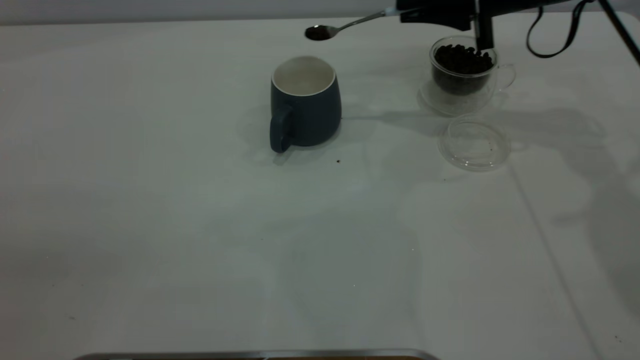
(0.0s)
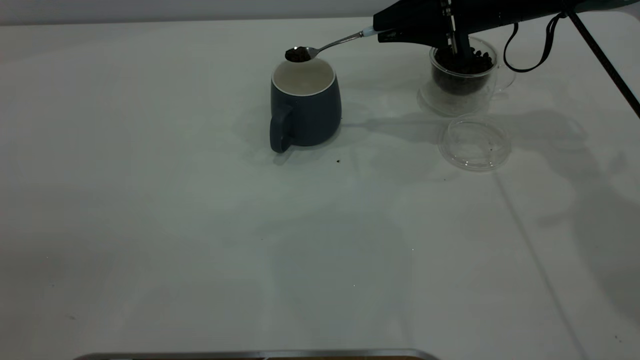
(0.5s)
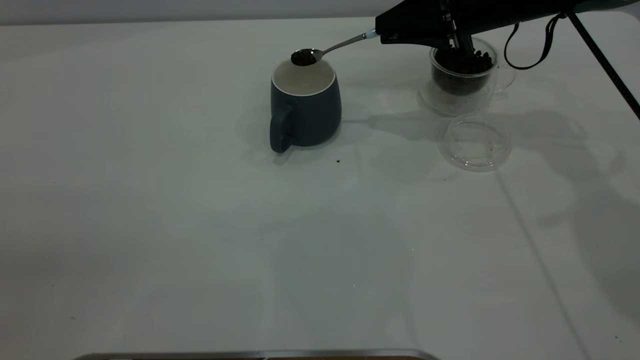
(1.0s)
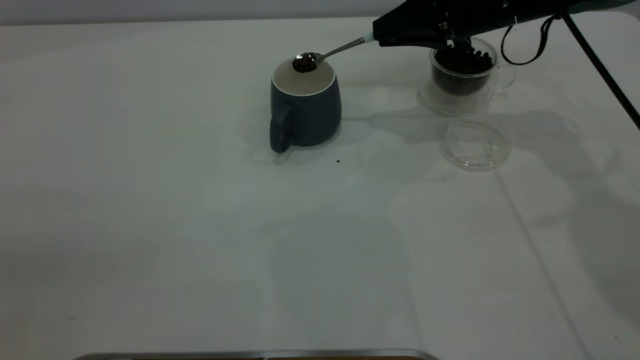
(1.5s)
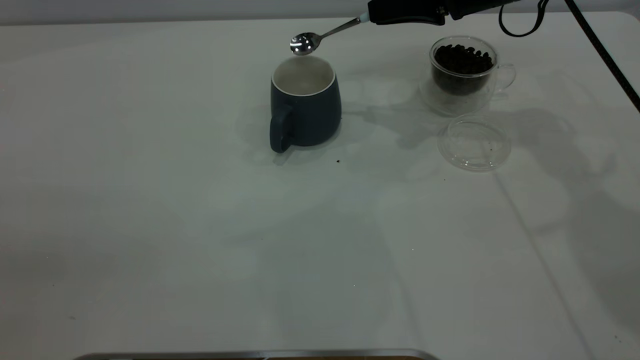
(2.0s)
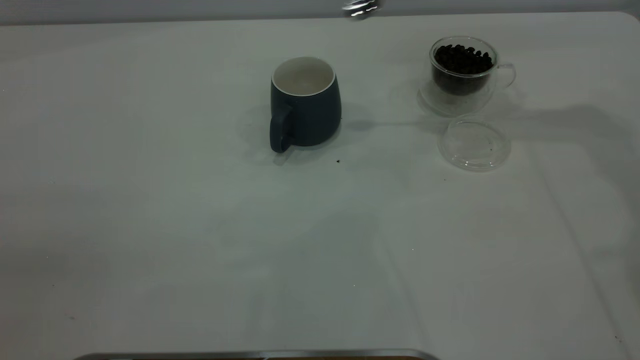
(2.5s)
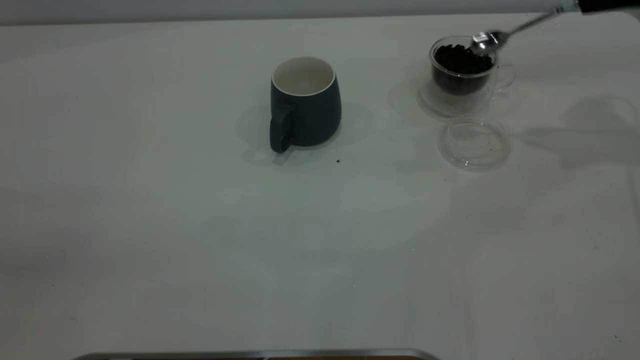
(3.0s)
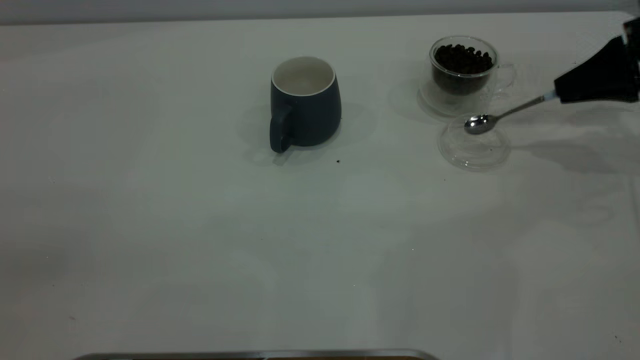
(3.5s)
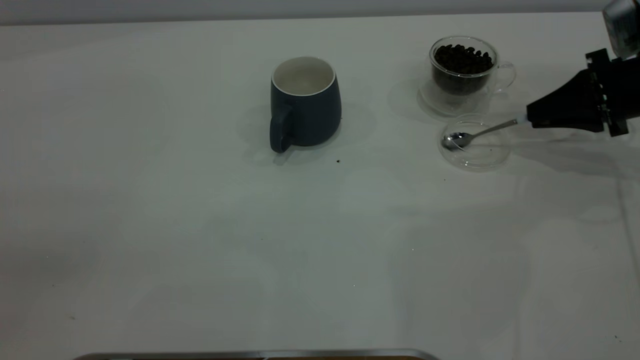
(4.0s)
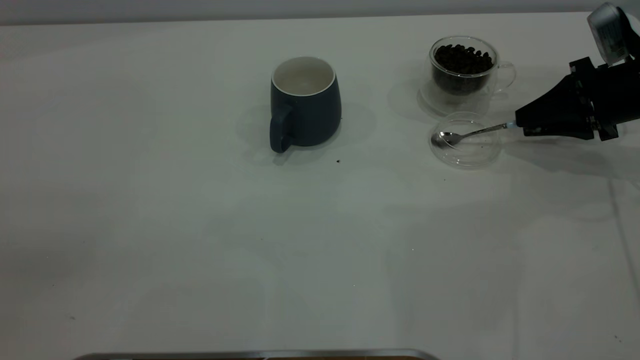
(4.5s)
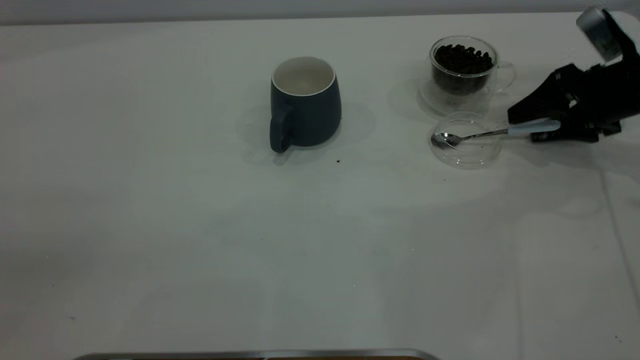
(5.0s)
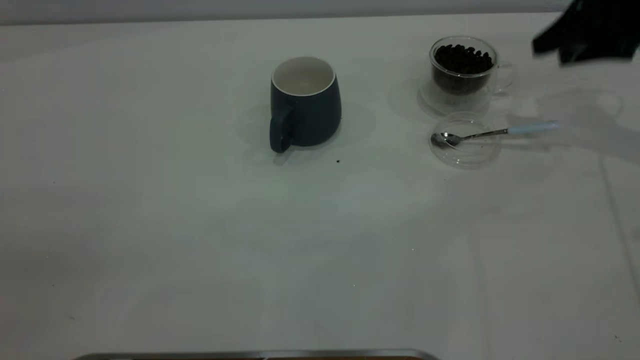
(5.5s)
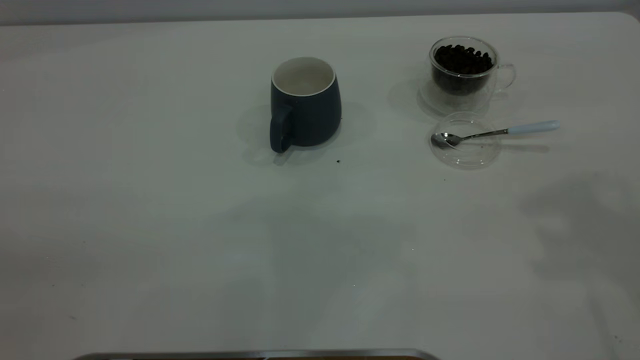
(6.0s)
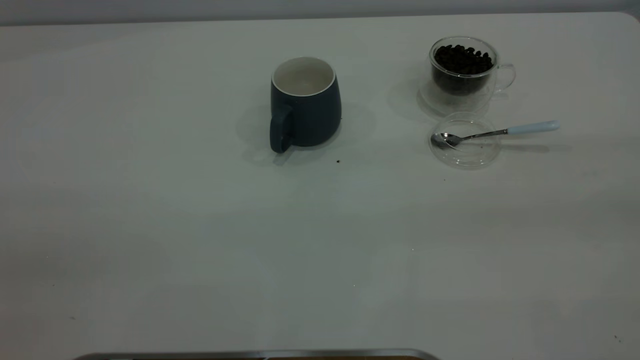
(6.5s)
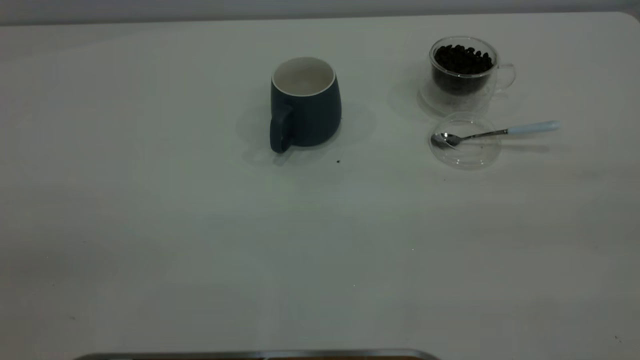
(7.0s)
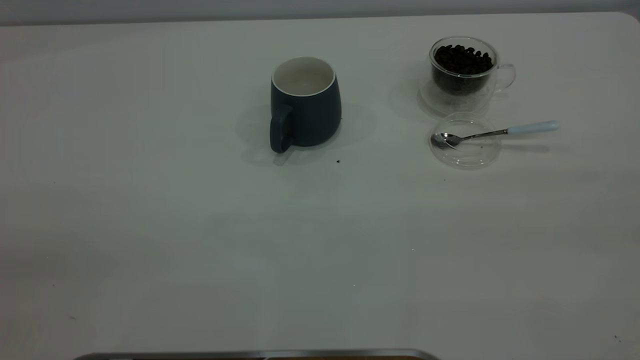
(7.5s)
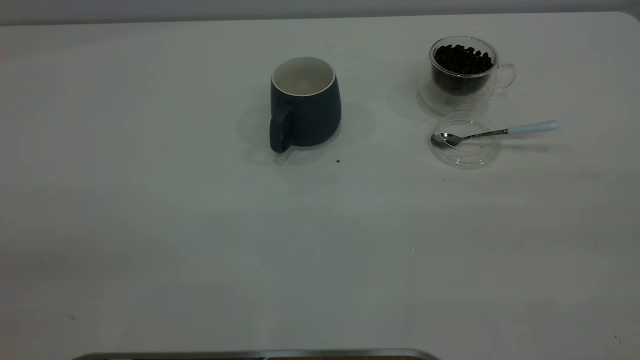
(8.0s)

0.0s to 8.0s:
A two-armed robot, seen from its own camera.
Task of the whole recording: the left gripper place the grey cup in the center of the table, the right gripper take the blue spoon from the cup lid and scoop out the coffee beans from the coffee cup and put them into the grey cup, the right gripper put the spoon back into the cup lid.
Step, 0.0s to 2.0s: Scoop a spoonful of beans into the cup.
Step, 2.5s to 5.0s: Place the spoon back in its original place.
2.0s to 4.0s: The right gripper is displaced to the right and downward by approximately 20 cm.
4.0s to 6.0s: The right gripper moves upward and backward, roughly 35 cm, and opens its fingers.

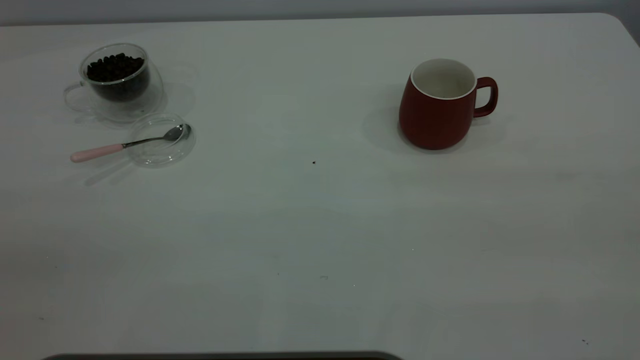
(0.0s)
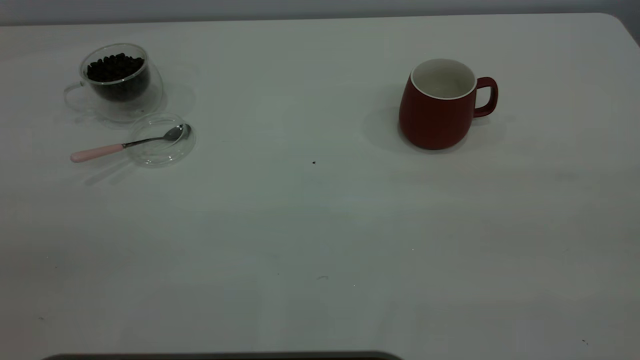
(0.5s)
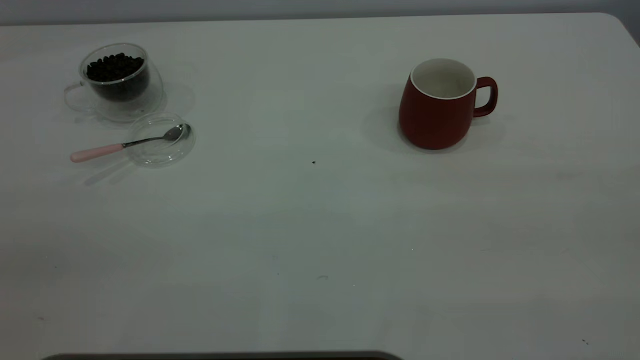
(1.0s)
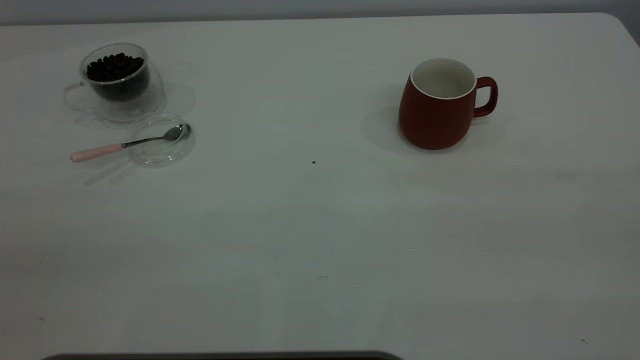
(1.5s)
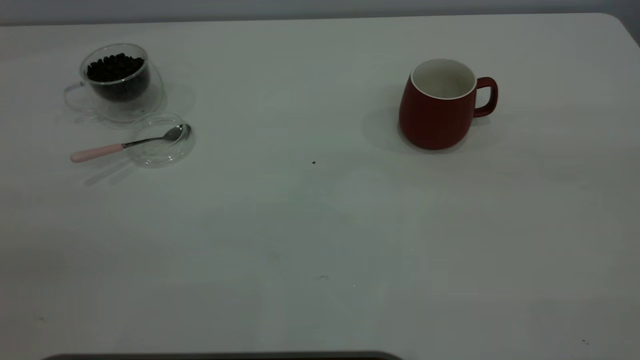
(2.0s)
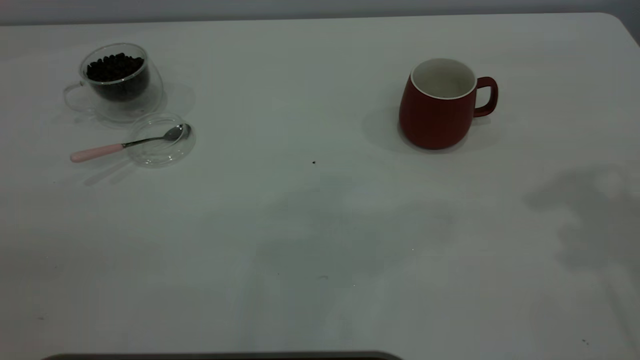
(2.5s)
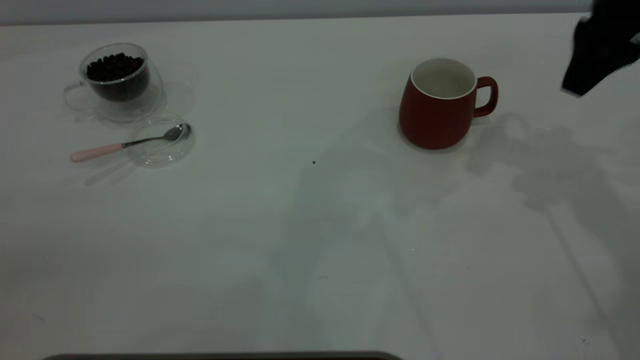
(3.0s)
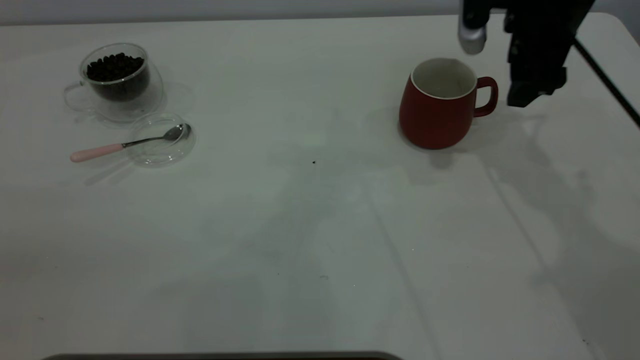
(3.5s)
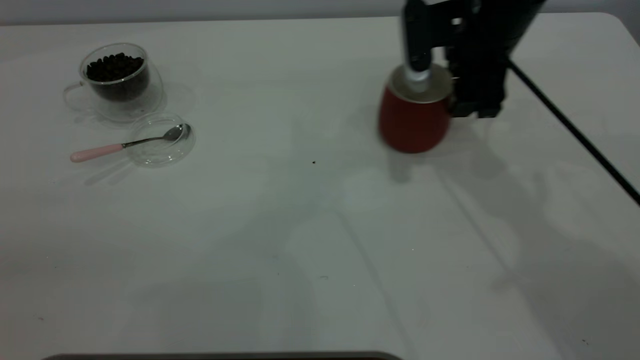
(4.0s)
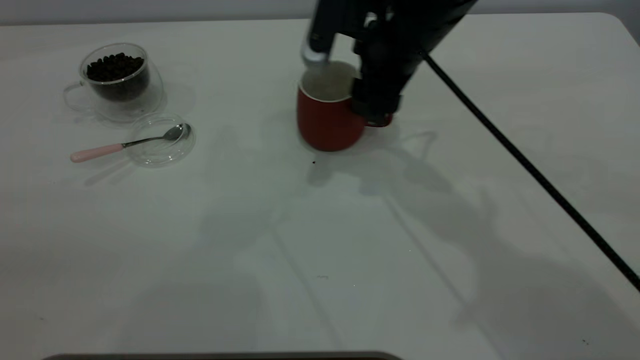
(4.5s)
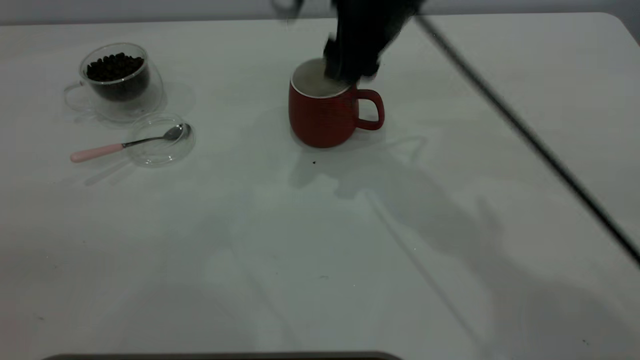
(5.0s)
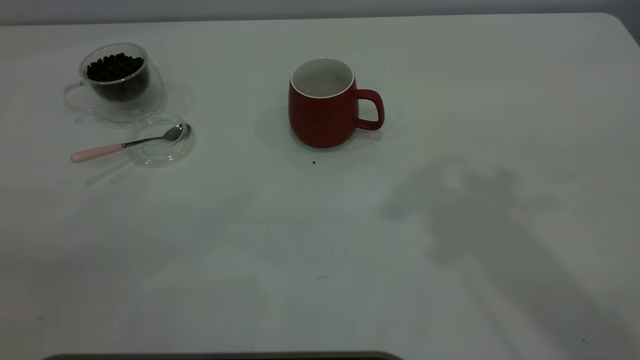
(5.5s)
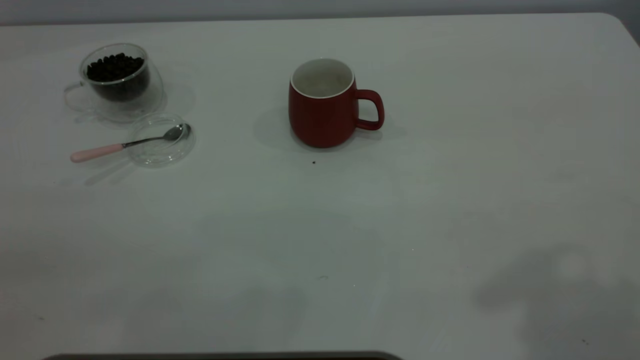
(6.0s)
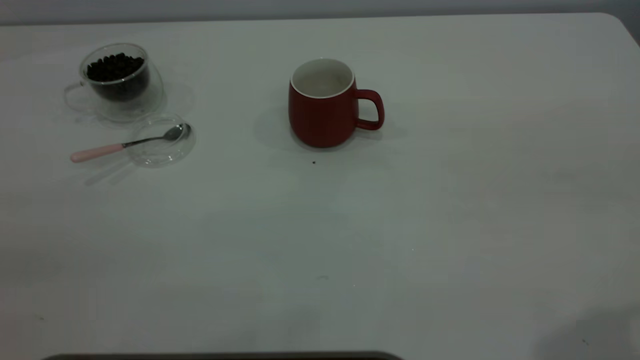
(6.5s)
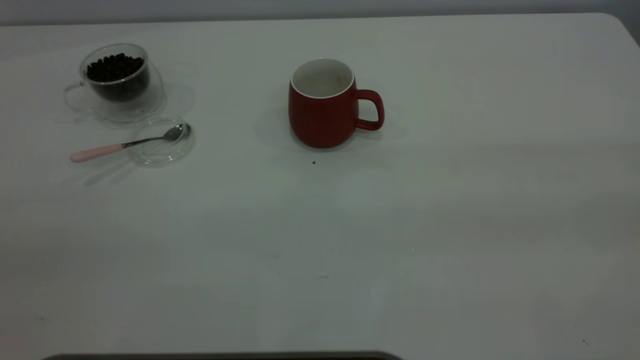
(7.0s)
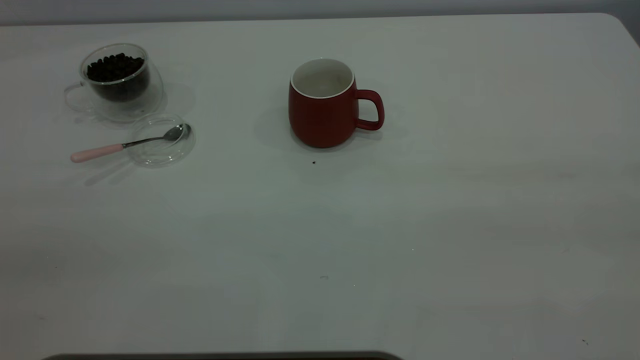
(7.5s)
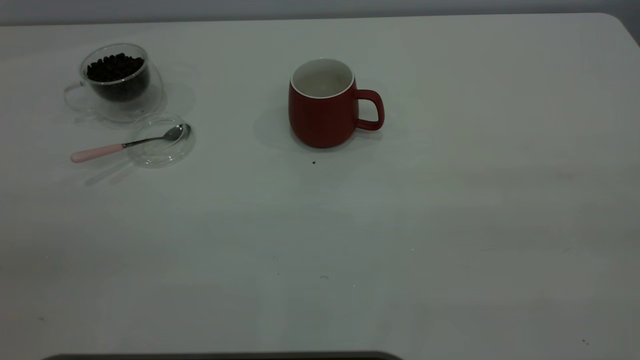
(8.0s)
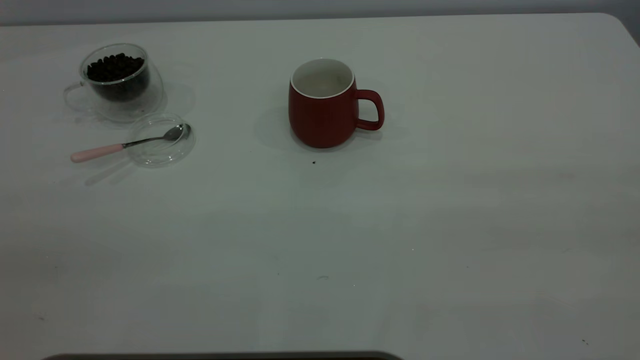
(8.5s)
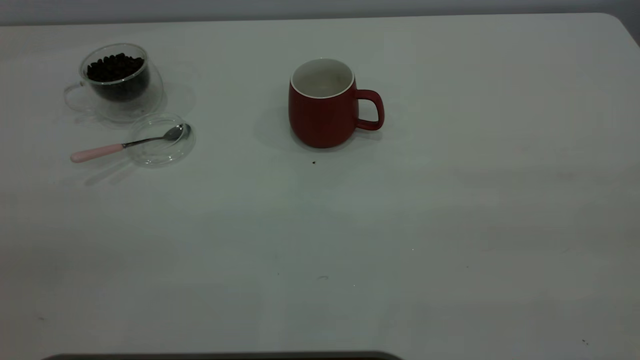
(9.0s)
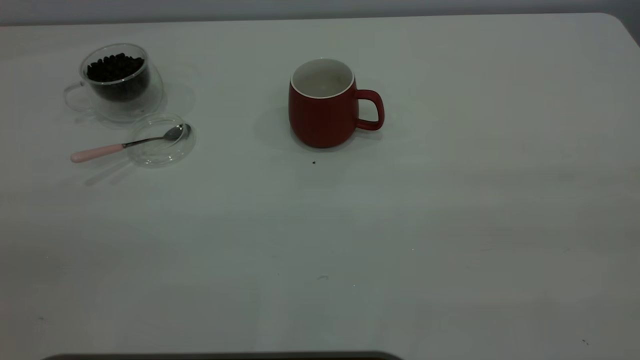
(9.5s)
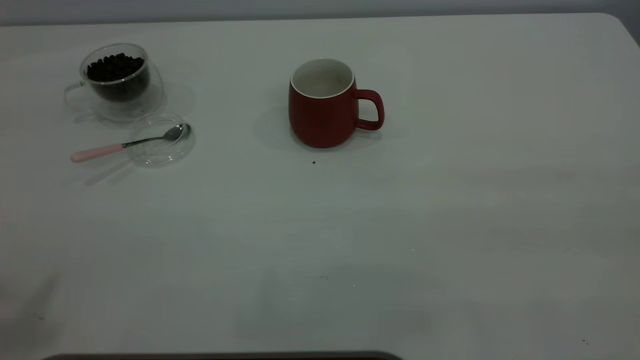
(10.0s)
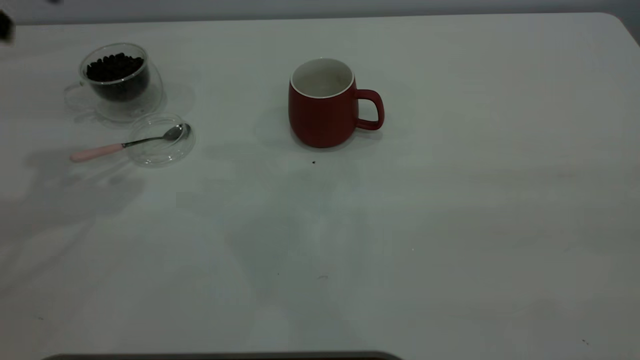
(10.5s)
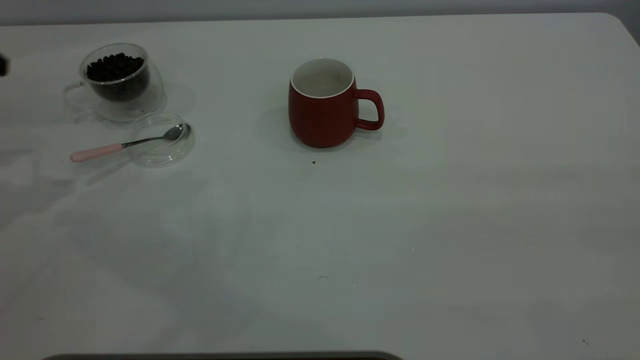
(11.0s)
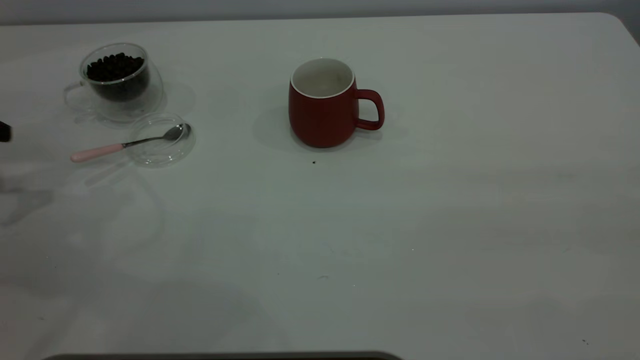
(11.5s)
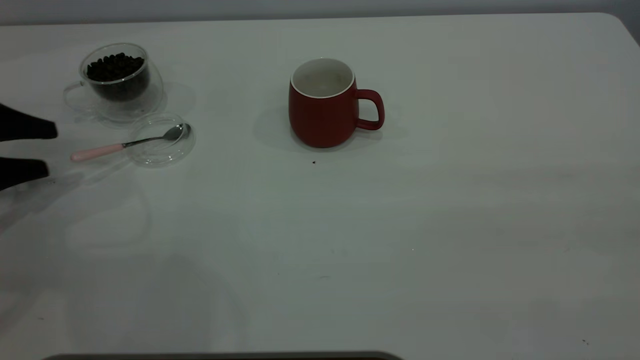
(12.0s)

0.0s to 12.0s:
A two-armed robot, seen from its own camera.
Task of the whole recording: the right gripper place the red cup in the center of the table, the left gripper take the pink spoon from the cup lid and scoop out the coffee beans from the coffee cup and put them into the red cup, the left gripper put the spoon back into the cup lid.
Step, 0.0s to 5.0s: Move the cup to the center of view.
2.0s to 4.0s: The right gripper heads forward, downward and to the left, covering approximately 50 cm, and opens, then closes again.
4.0s to 6.0s: The right gripper heads upward and backward, covering roughly 40 cm.
10.0s to 12.0s: The left gripper travels downward by roughly 35 cm.
